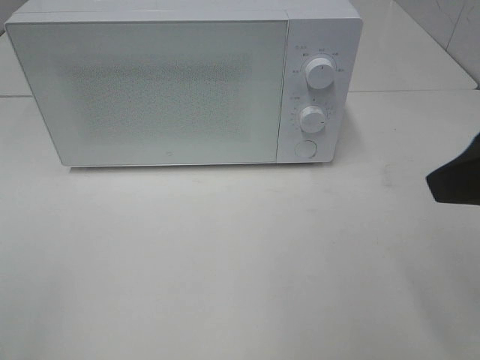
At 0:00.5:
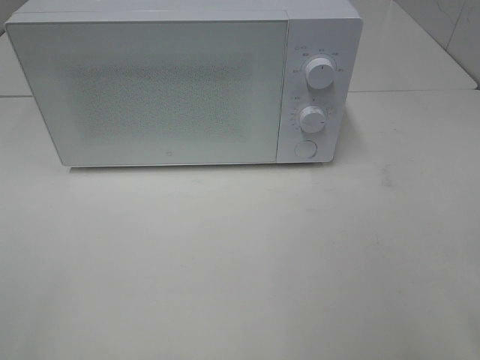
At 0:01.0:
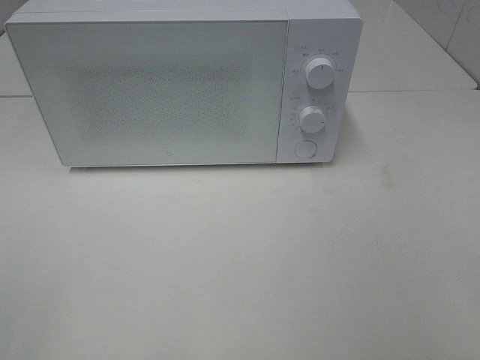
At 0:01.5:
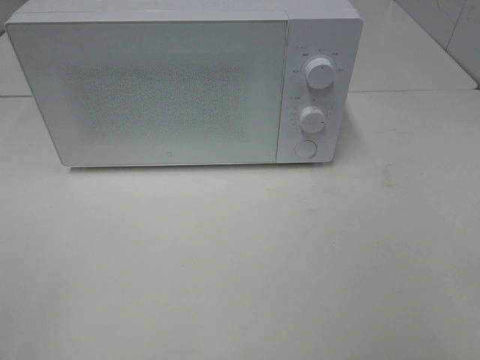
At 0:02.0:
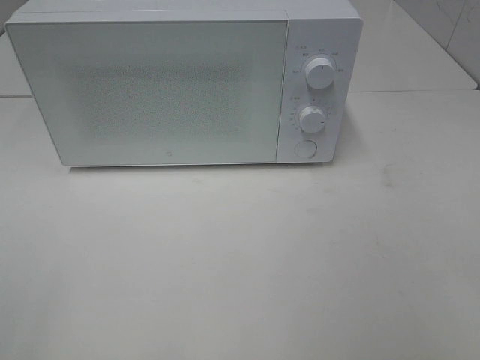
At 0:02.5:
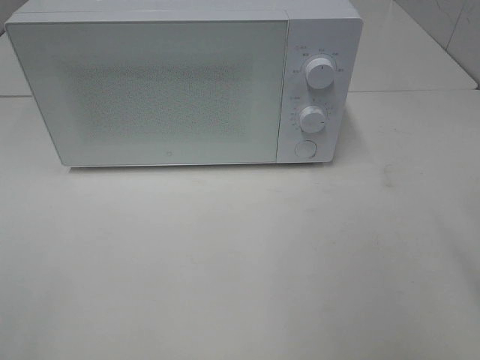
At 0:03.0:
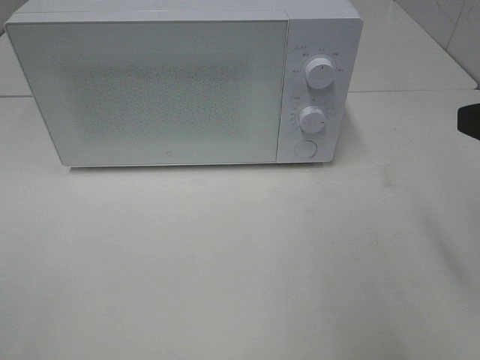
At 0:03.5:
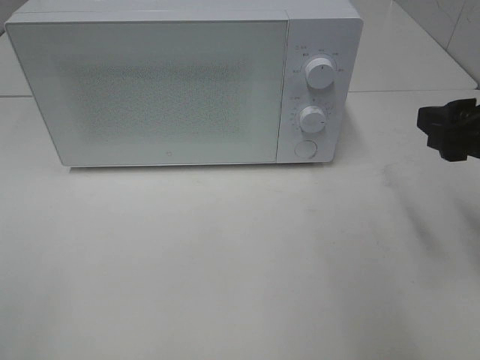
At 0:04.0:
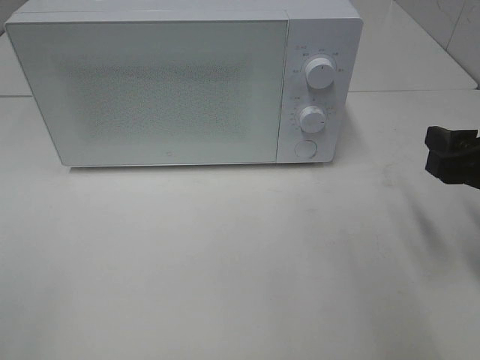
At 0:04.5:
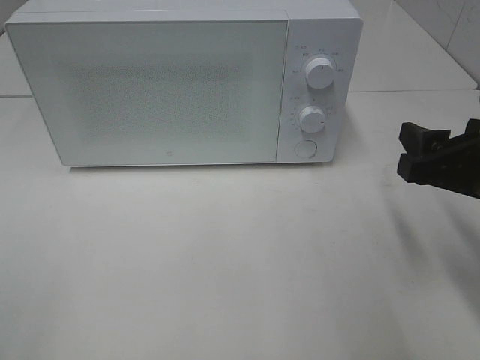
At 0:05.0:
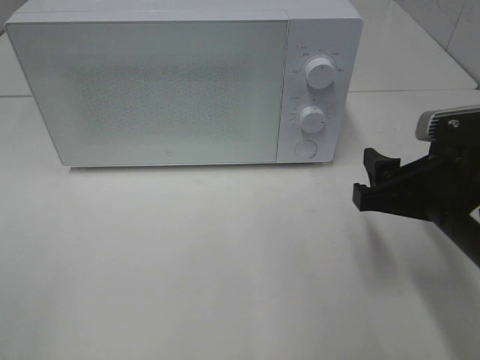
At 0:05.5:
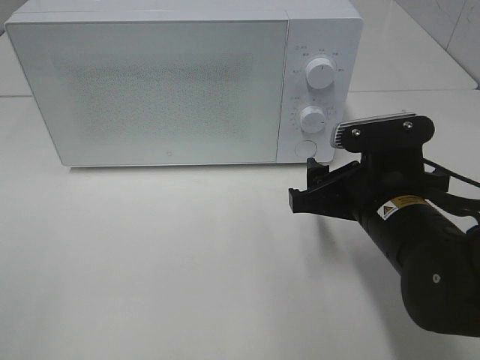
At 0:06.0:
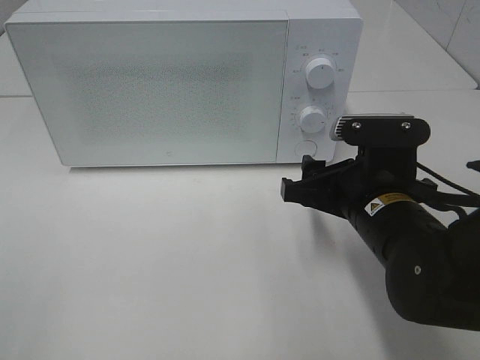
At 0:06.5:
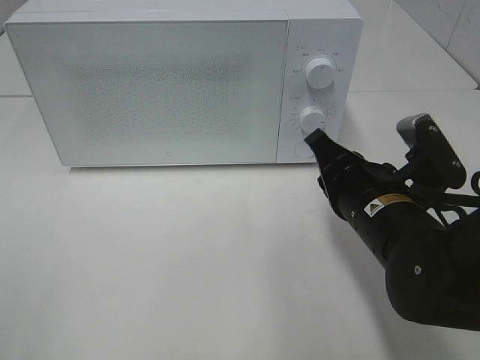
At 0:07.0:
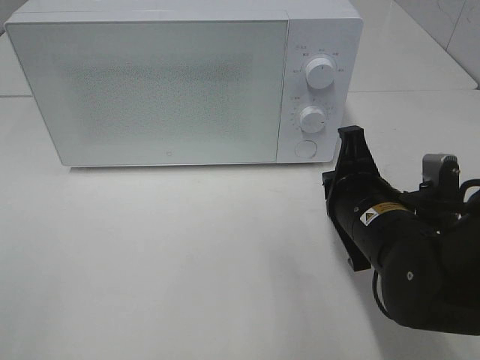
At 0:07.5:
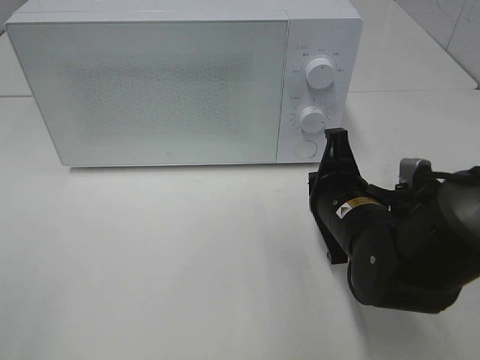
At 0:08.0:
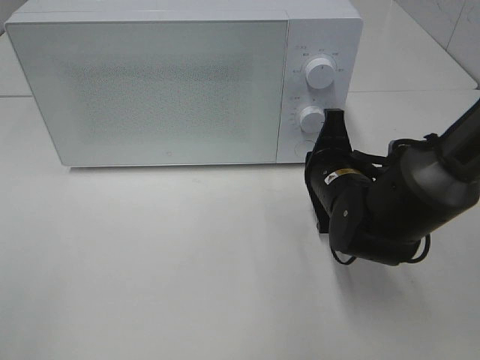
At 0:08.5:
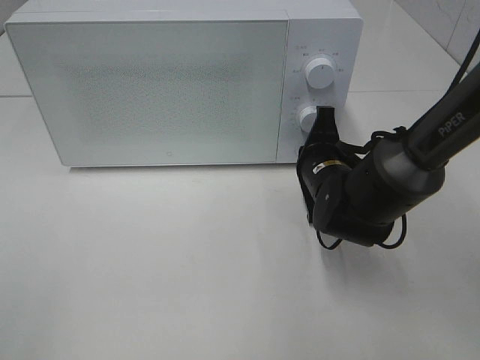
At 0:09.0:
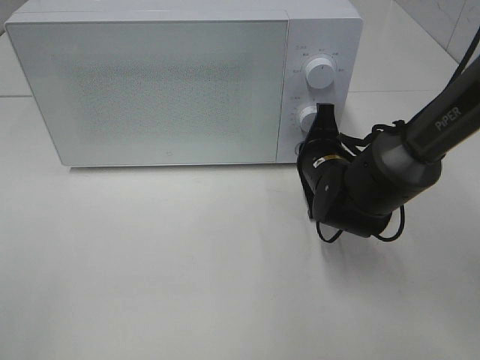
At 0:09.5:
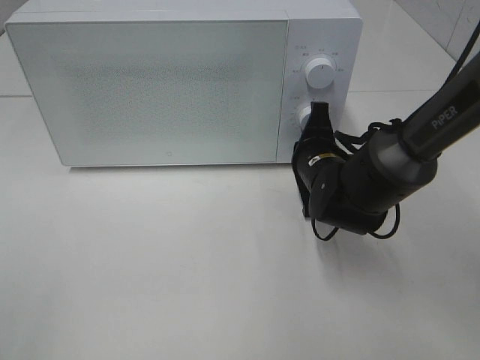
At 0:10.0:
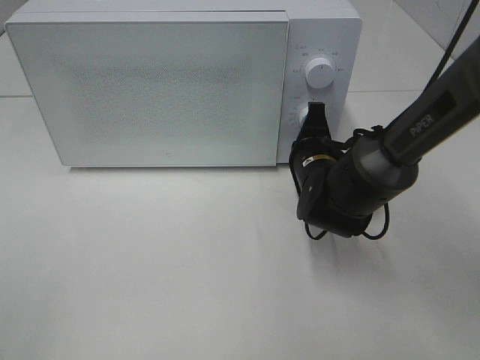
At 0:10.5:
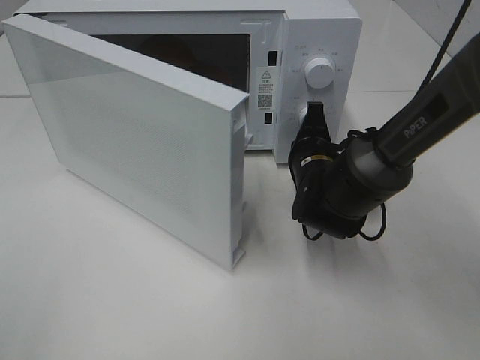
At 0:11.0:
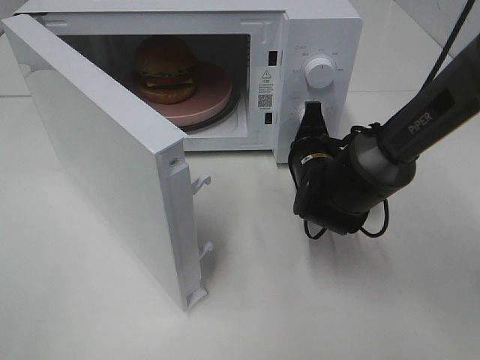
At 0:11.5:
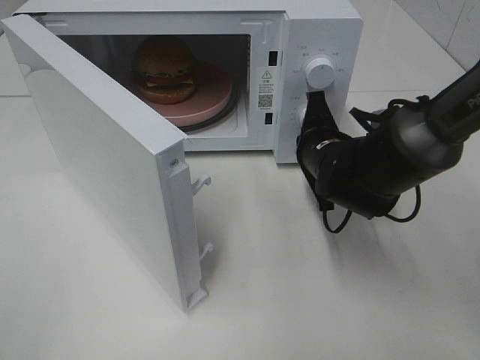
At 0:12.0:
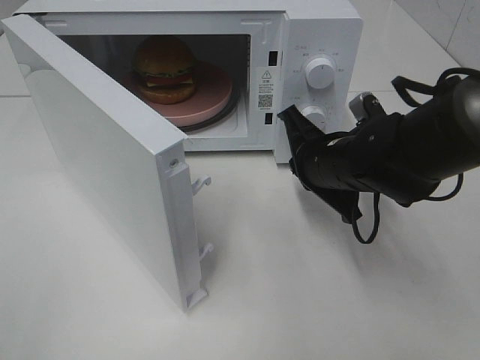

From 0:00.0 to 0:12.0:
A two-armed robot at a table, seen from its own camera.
Task of the whole recording: Heat the burger.
Step, from 0:00.0 to 0:11.5: Right hand: press the switch.
From 0:00.0 to 0:02.0: The right gripper heads backward and to the right, covering roughly 10 cm.
From 0:02.0 to 0:04.0: The right gripper moves forward and downward, approximately 20 cm.
From 0:04.0 to 0:06.0: The right gripper goes approximately 15 cm to the left and downward.
From 0:06.0 to 0:08.0: The right gripper heads forward, covering some 10 cm, and closes its fingers.
From 0:08.0 to 0:10.0: The right gripper travels forward by approximately 5 cm.
From 0:10.0 to 0:12.0: The right gripper changes place by roughly 5 cm.

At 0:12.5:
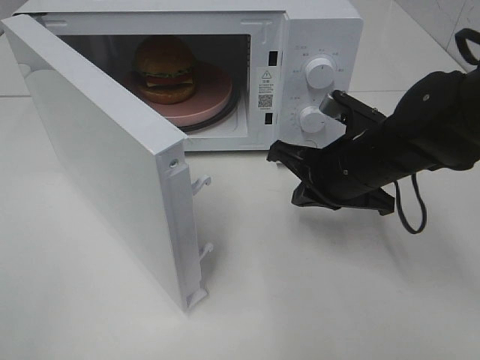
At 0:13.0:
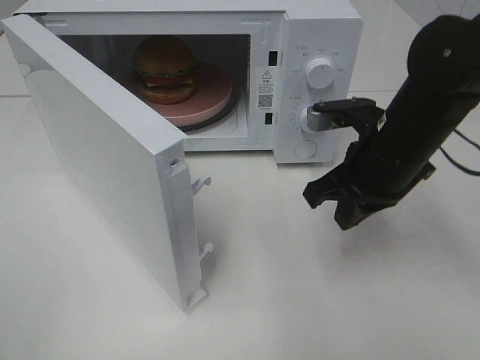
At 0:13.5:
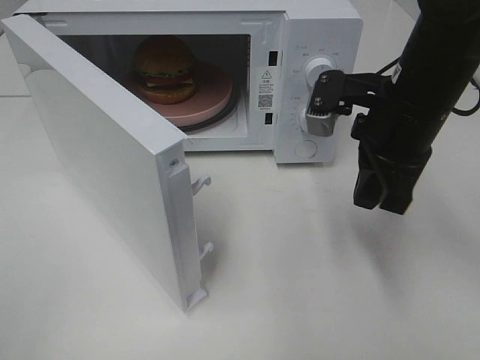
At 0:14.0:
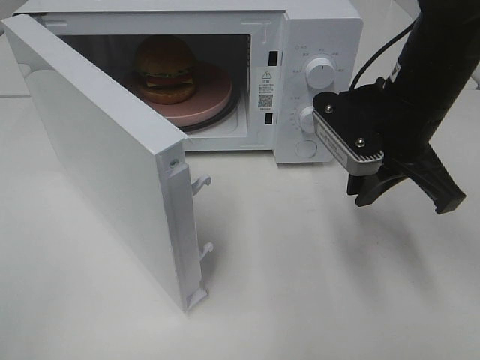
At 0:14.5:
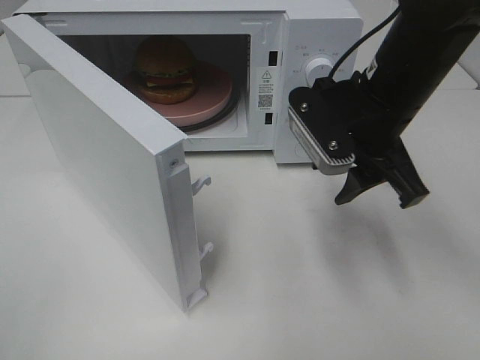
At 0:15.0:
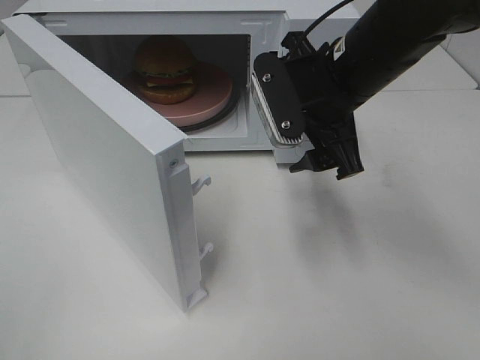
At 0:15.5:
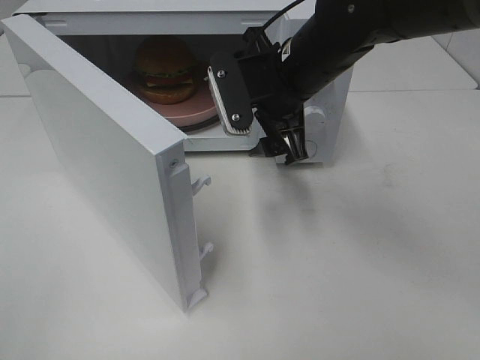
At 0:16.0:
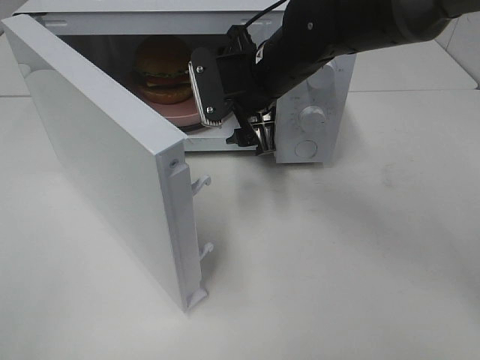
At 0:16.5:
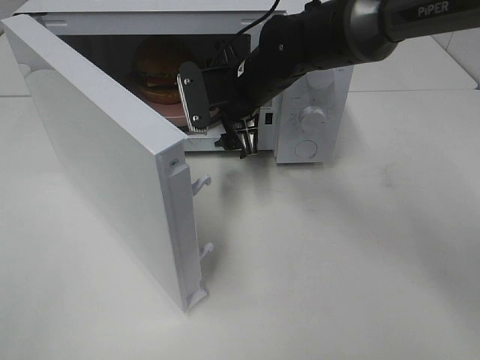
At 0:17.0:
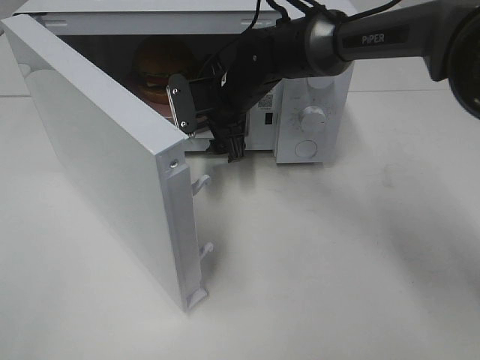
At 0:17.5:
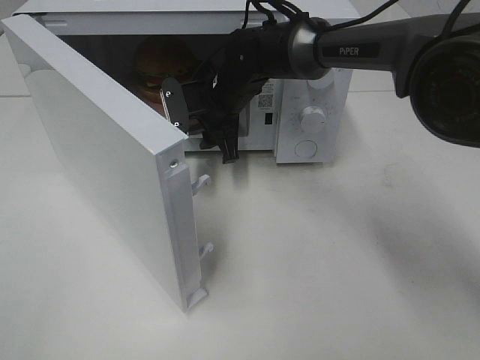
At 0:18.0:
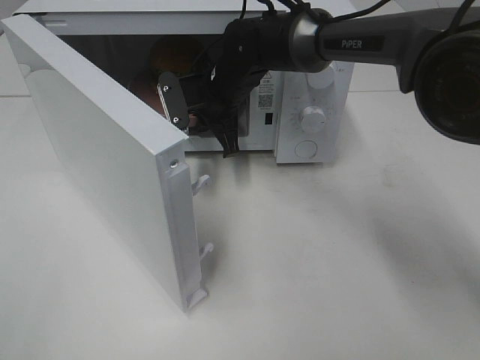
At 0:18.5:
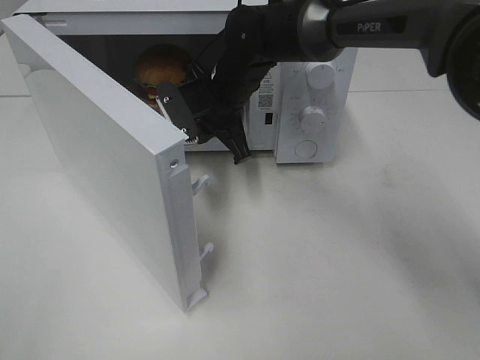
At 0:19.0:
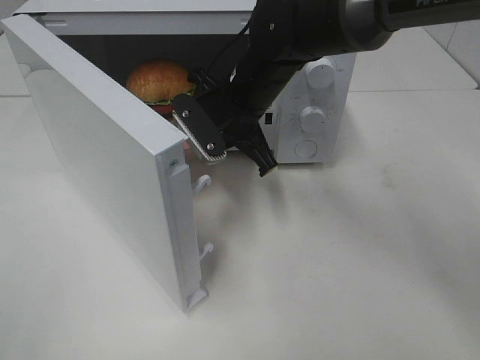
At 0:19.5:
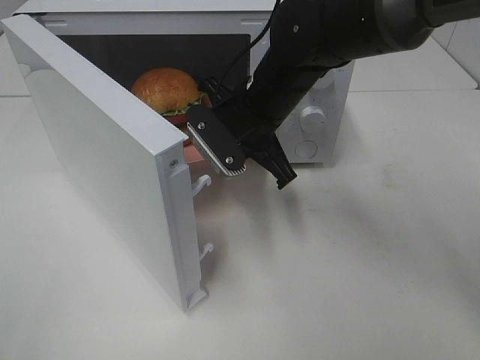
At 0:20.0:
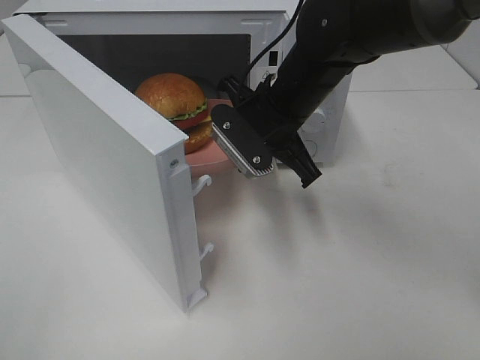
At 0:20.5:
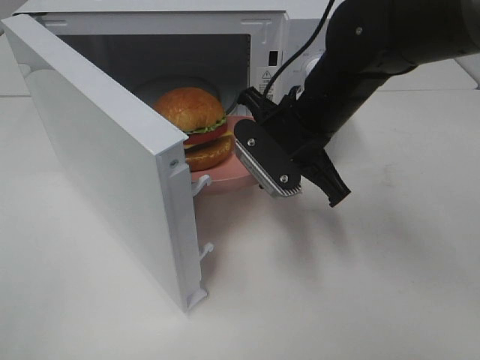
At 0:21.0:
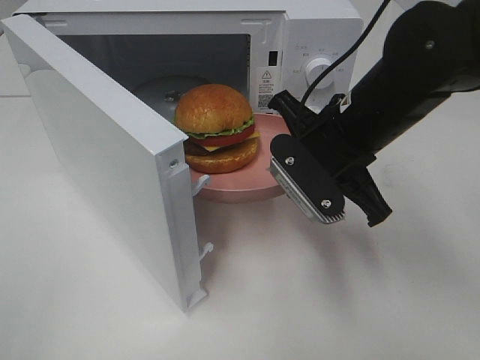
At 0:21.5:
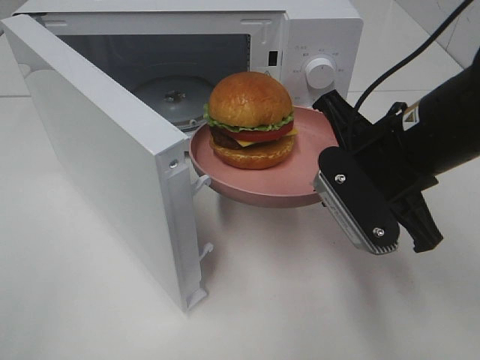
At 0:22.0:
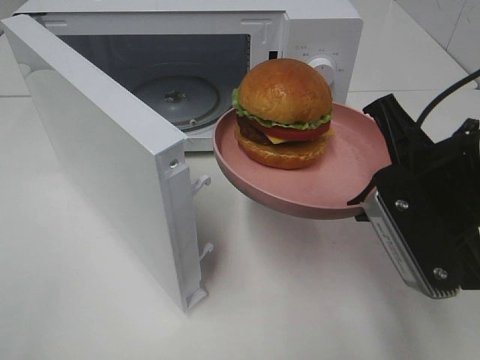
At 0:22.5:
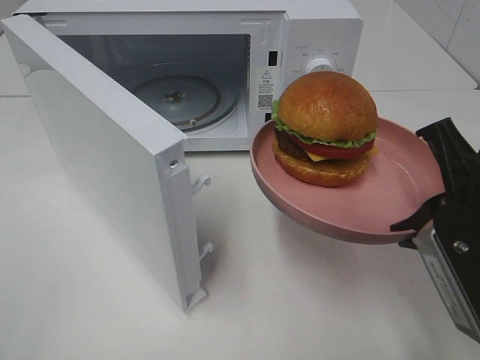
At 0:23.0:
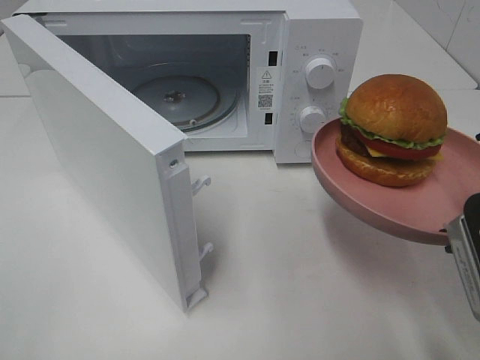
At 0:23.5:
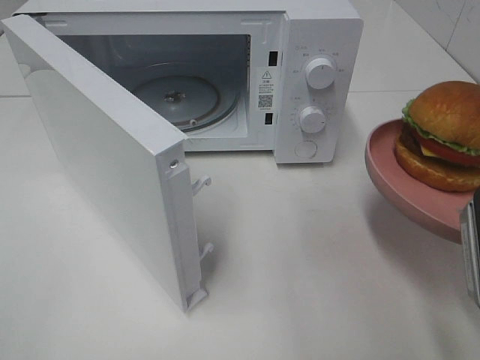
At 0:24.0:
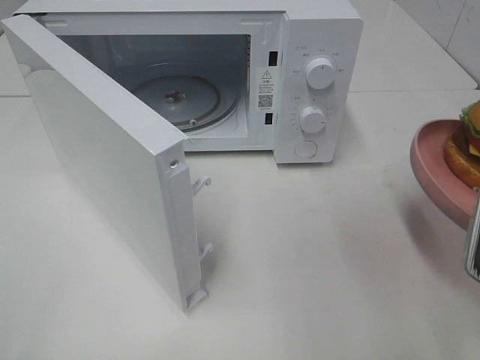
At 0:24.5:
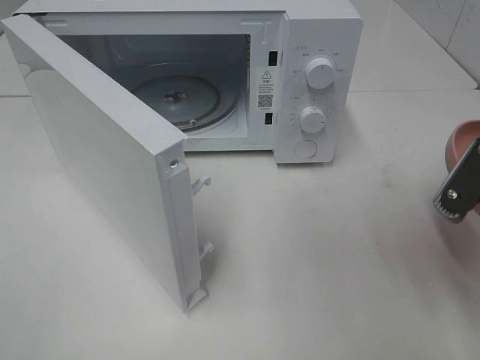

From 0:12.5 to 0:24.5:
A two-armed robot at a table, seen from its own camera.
Task of the whole recording: Heat the burger.
Step, from 0:12.5 to 0:17.5: Right hand: grab the plate with the hamburger.
From 0:12.5 to 0:14.5: The right gripper moves upward, some 10 cm, and opens.
From 0:14.5 to 0:16.5: The right gripper heads forward, to the left and downward, covering about 15 cm.
From 0:16.5 to 0:18.5: The right gripper closes its fingers.
From 0:18.5 to 0:20.5: The right gripper is displaced backward and to the right by approximately 15 cm.
From 0:20.5 to 0:22.5: The right gripper shifts some 20 cm backward and to the right.
From 0:22.5 to 0:24.5: The right gripper shifts by about 5 cm.

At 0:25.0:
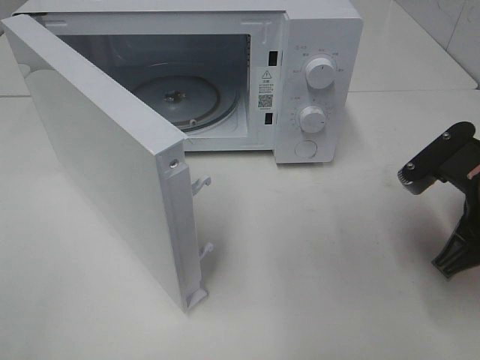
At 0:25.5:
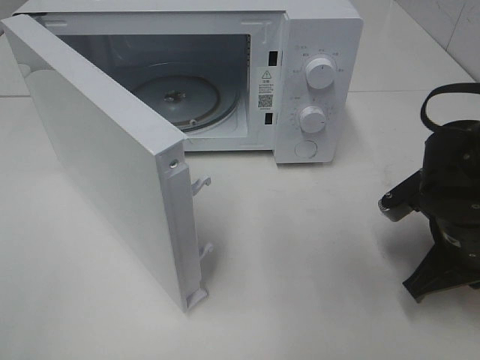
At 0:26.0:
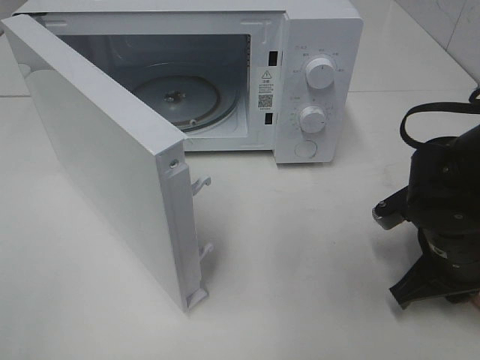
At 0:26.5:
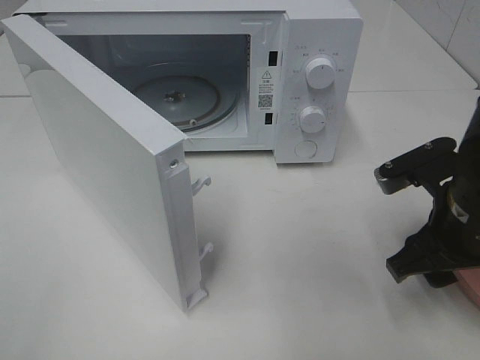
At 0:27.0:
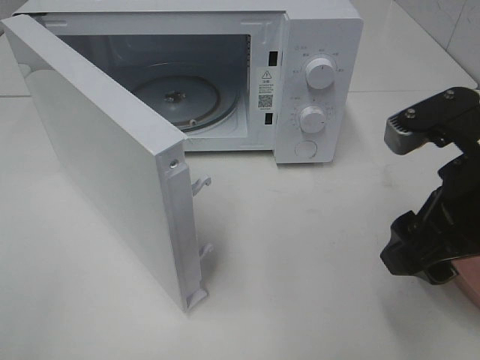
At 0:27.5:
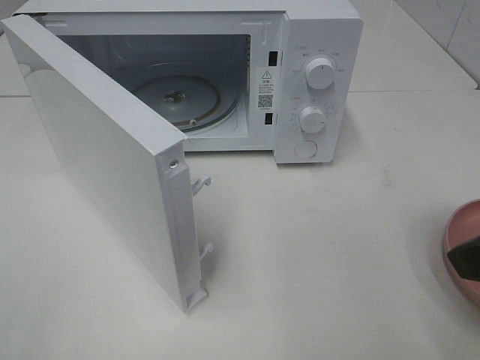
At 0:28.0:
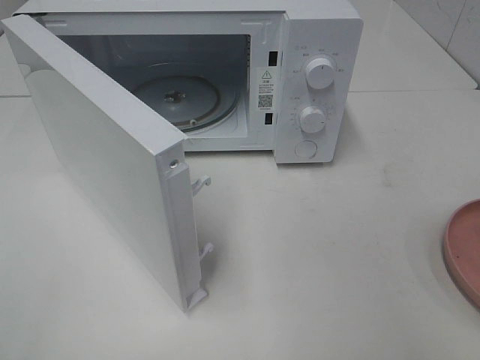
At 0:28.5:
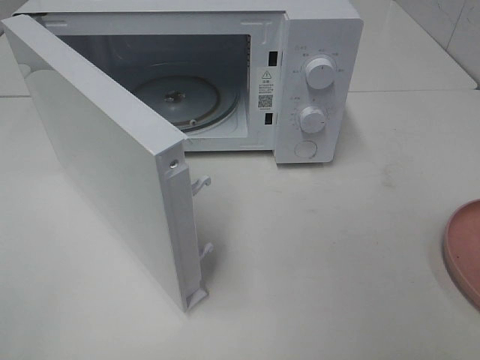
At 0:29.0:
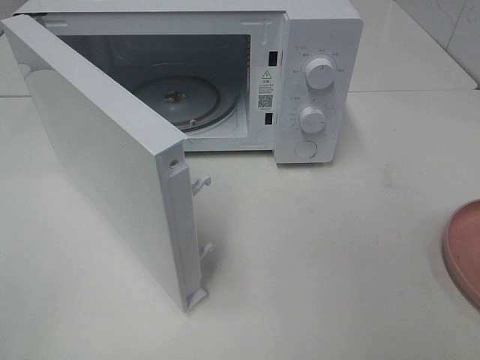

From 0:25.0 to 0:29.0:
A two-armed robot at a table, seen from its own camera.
Task of the whole recording: Heat the burger.
From 0:25.0 to 0:27.0: The right gripper is displaced upward by roughly 5 cm, and opens up.
From 0:27.0 to 0:29.0: The right gripper is displaced backward and to the right by approximately 20 cm.
